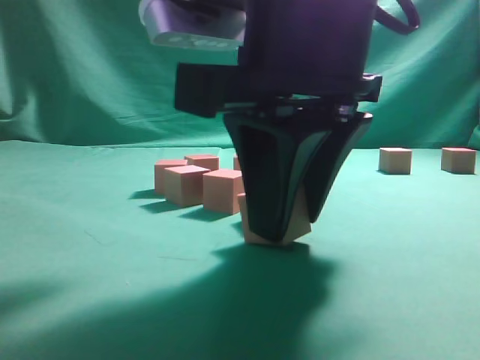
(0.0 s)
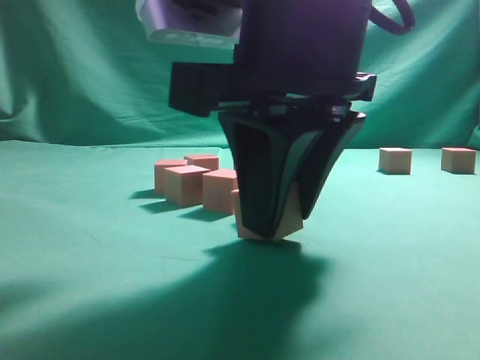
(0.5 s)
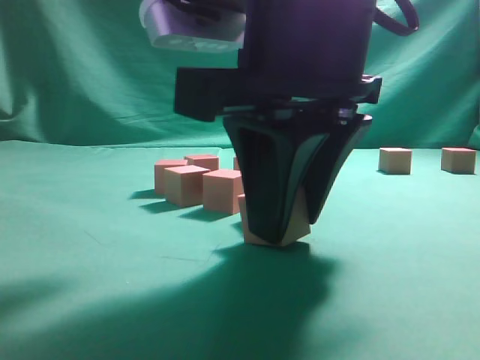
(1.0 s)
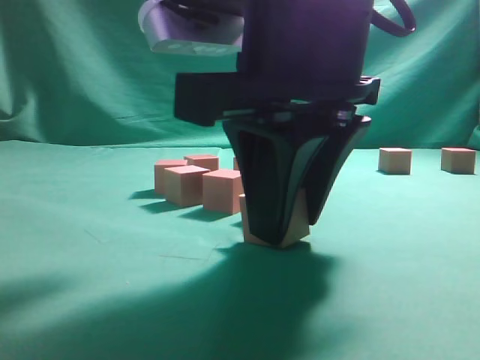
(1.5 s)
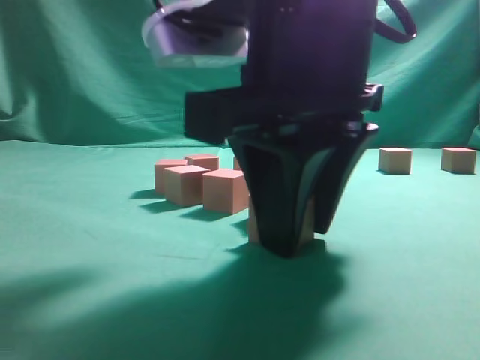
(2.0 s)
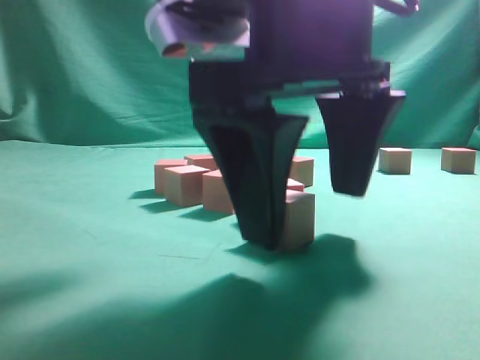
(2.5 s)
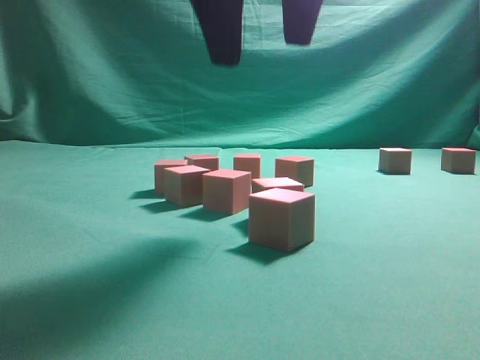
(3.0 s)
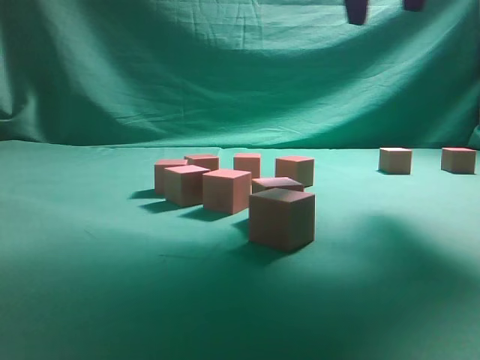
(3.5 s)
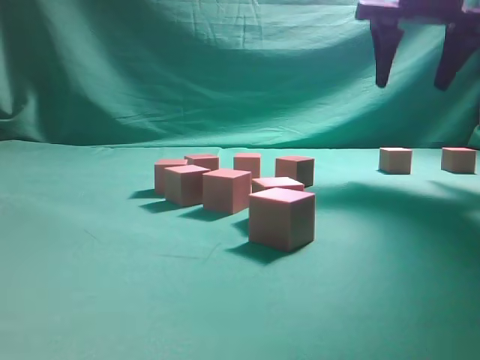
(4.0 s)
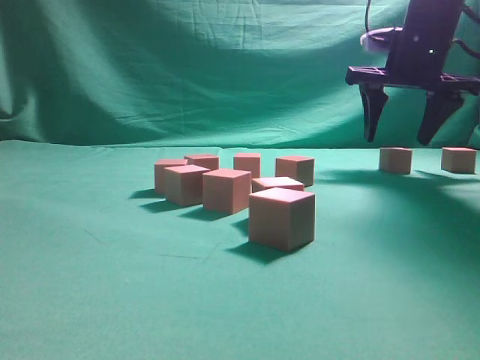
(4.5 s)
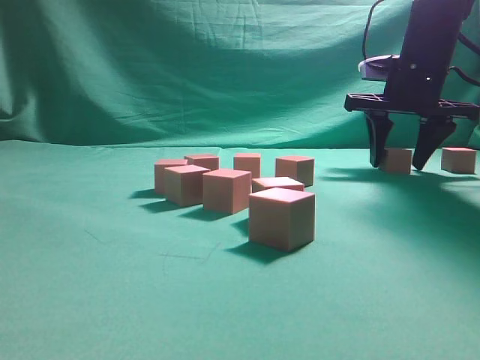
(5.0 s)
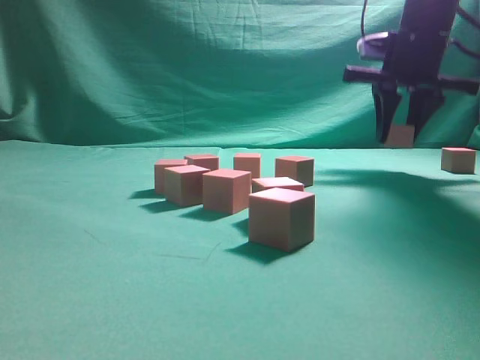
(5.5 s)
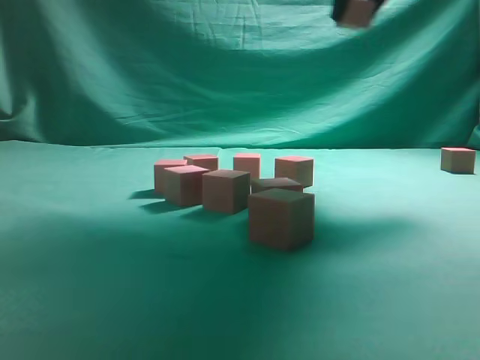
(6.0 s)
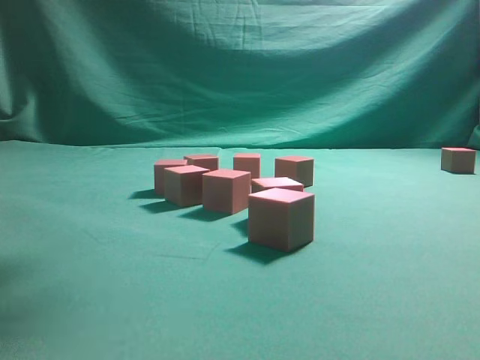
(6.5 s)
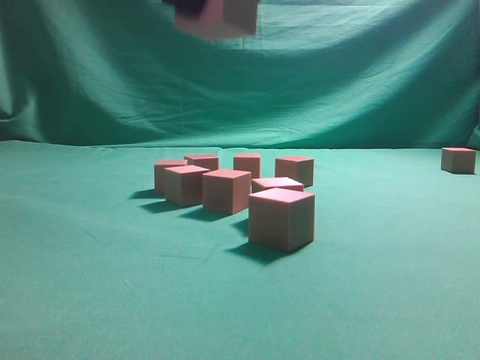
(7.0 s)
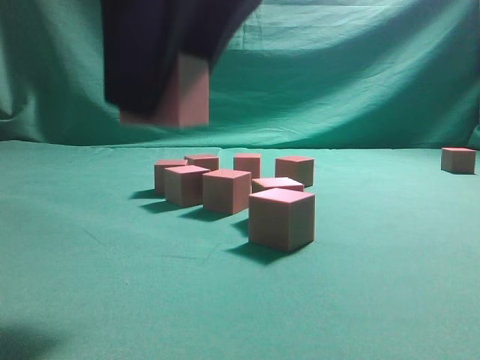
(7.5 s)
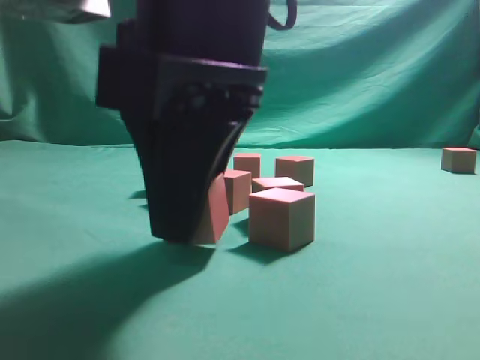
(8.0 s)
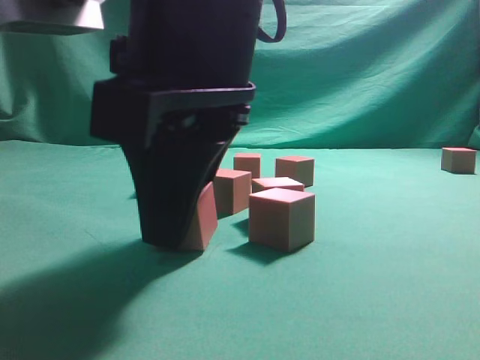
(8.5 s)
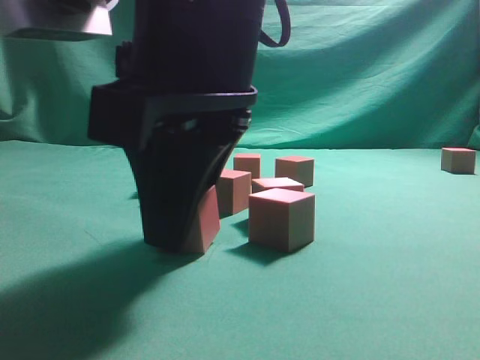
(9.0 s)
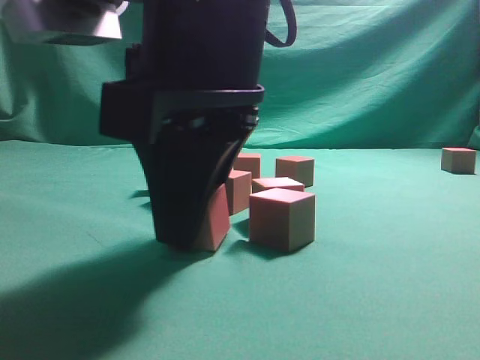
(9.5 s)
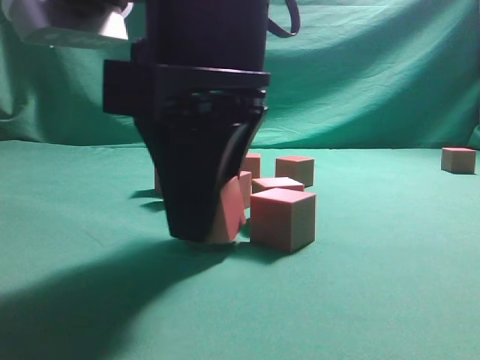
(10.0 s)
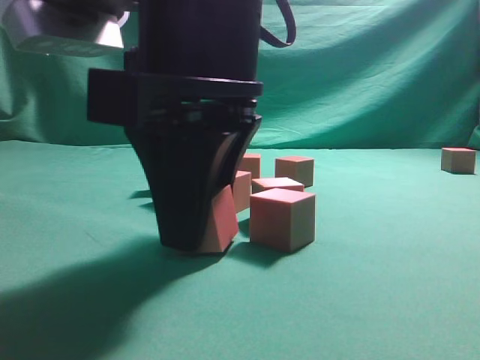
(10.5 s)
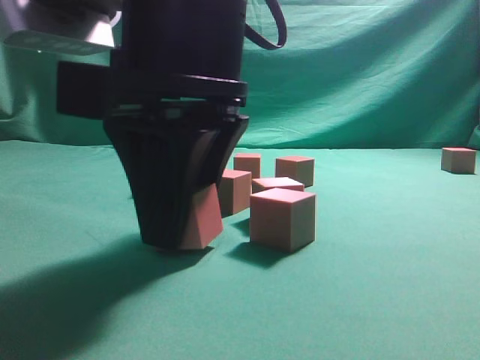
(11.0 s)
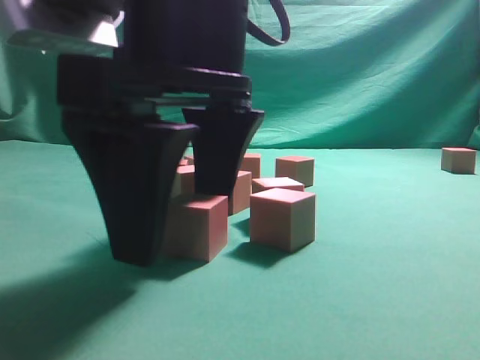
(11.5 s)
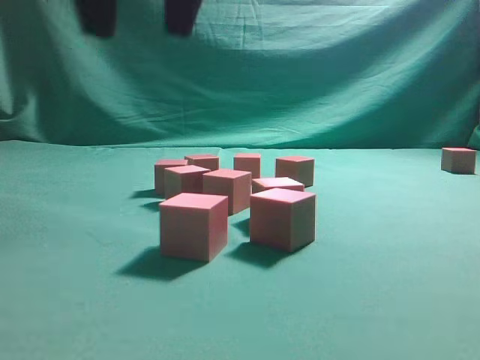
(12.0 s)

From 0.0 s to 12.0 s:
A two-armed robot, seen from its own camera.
Task of the whole recording: pick up the multiple cubes in two columns one by one and place them in another position on the table.
Step, from 0.0 s to 2.5 s: Place the block at the correct position to assemble the letter S.
Step, from 3.0 s to 5.5 s: Pick up the block on the table.
Step, from 6.0 s to 11.5 s: Place the block at the correct position to assemble the letter S.
From 0.0 s to 2.0 s: Both grippers stay about where they are.
From 2.0 s to 4.0 s: The right gripper is displaced forward, to the right and upward by roughly 30 cm, and opens up.
From 4.0 s to 6.0 s: The right gripper is displaced upward and to the left by about 10 cm, and closes.
From 6.0 s to 8.0 s: The right gripper travels backward, to the left and downward by about 30 cm.
From 8.0 s to 10.0 s: The grippers stay close to where they were, moving slightly.
From 10.0 s to 12.0 s: The right gripper moves upward, about 10 cm, and opens.

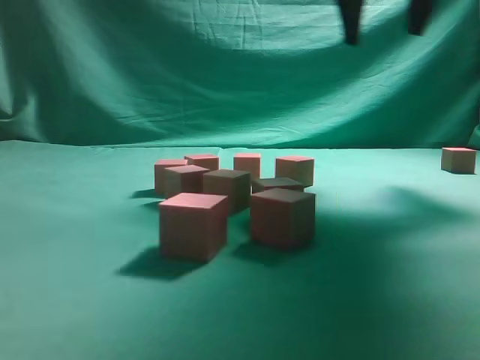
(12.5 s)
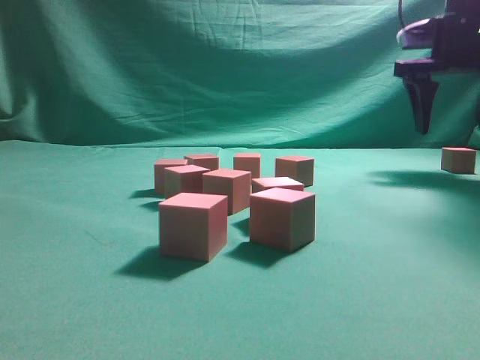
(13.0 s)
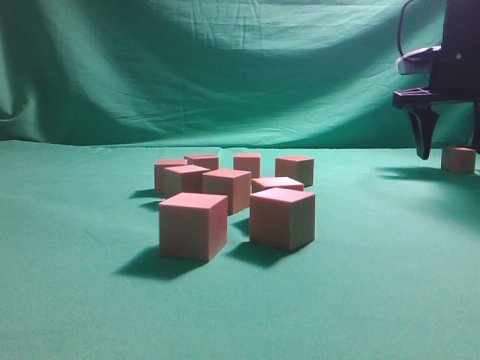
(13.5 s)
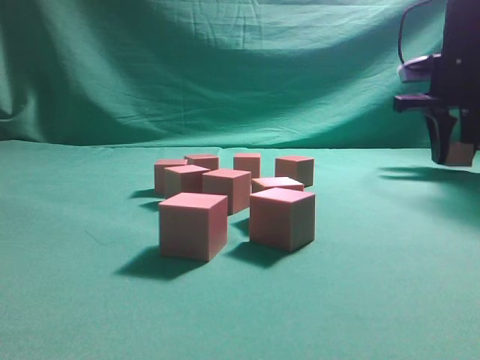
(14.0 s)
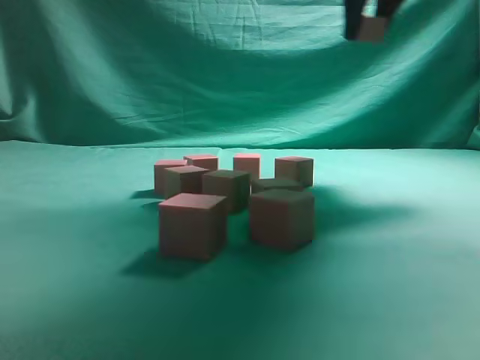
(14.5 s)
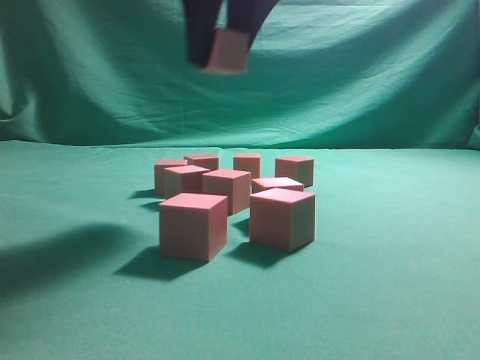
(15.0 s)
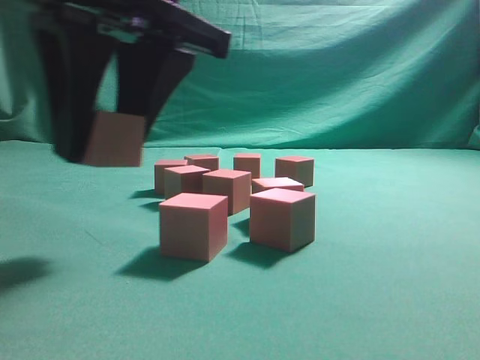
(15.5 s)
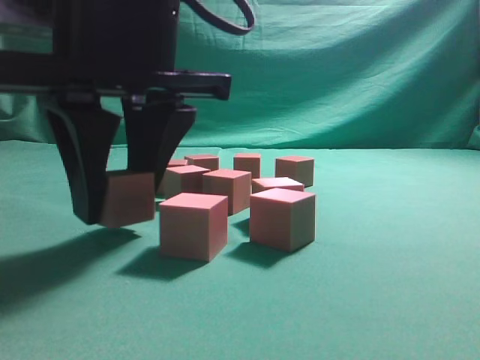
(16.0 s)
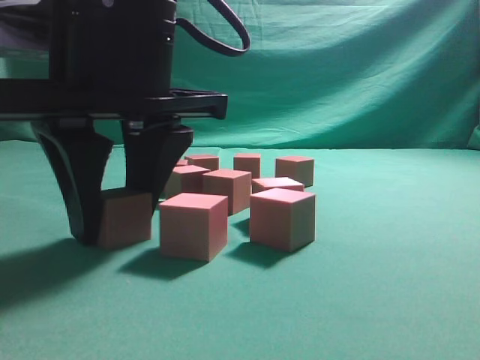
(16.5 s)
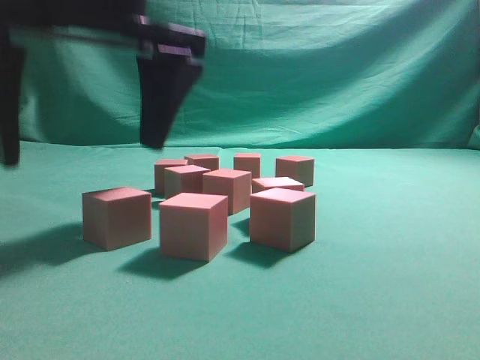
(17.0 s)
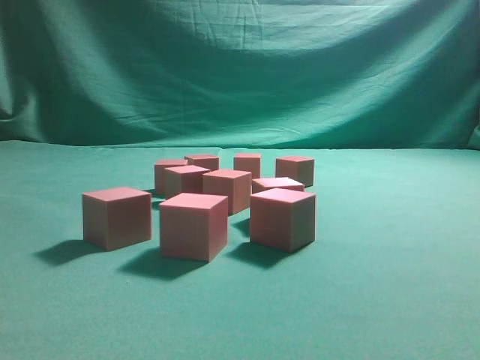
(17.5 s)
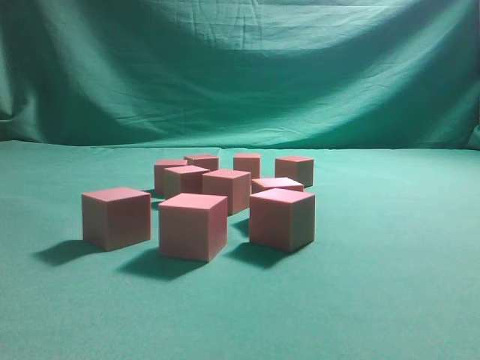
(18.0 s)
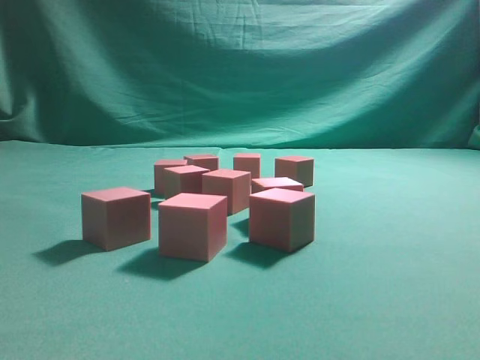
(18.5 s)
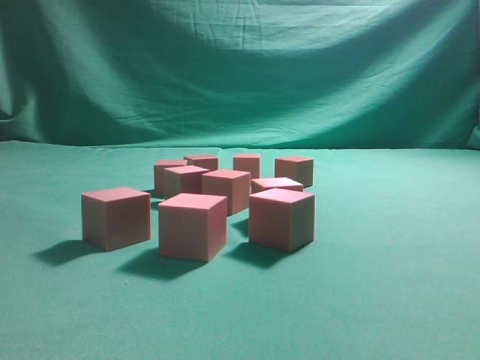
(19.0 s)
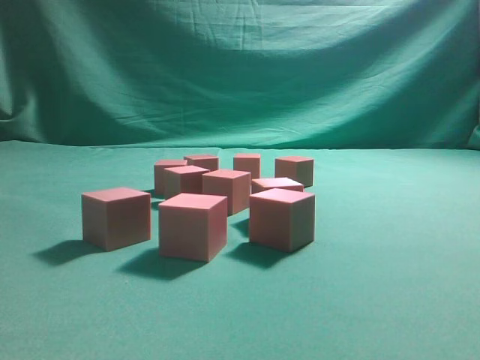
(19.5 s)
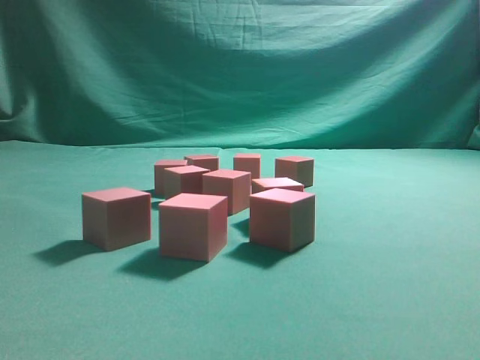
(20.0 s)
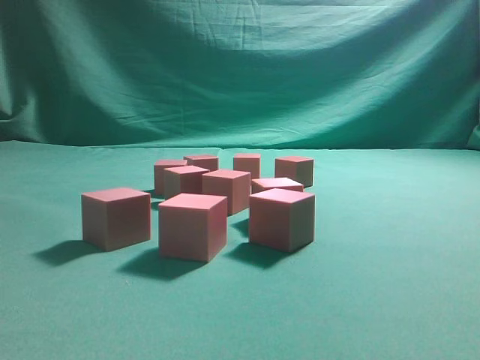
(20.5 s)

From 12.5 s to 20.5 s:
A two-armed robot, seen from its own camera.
Task of the whole recording: pick up the multiple cubes in two columns one by one and place them in another position on the table.
Step, from 12.5 s to 14.0 s: Pick up the block on the table.
Step, from 14.5 s to 17.0 s: Place the block at the correct position to assemble the letter S.
From 12.5 s to 14.5 s: The right gripper reaches approximately 15 cm downward, then returns, and closes its fingers.
From 14.5 s to 16.5 s: The right gripper moves to the left, backward and downward, roughly 35 cm.
From 16.5 s to 18.5 s: The right gripper moves upward, to the right and backward, approximately 50 cm, and closes.
